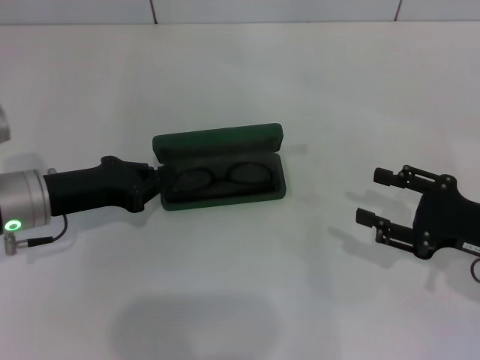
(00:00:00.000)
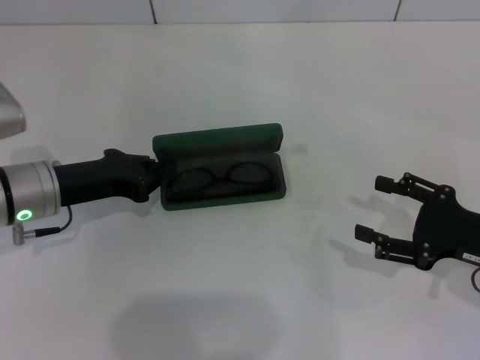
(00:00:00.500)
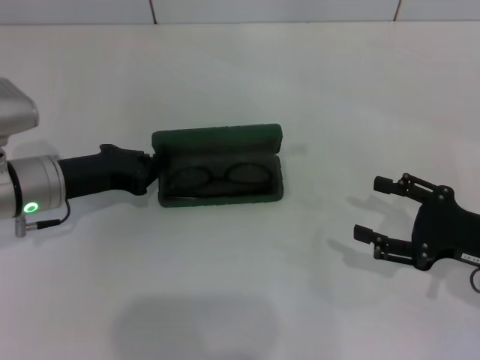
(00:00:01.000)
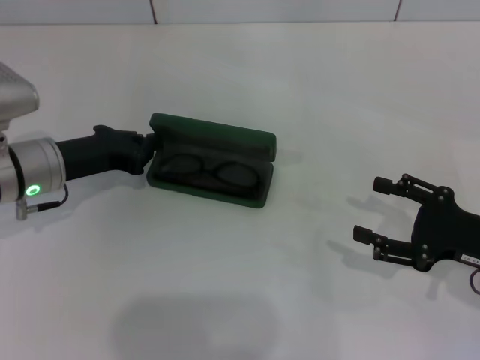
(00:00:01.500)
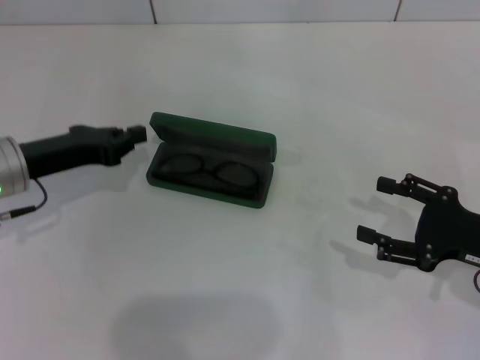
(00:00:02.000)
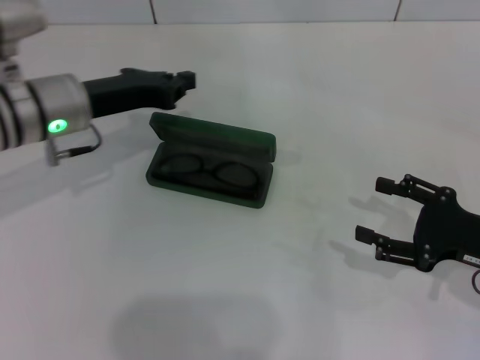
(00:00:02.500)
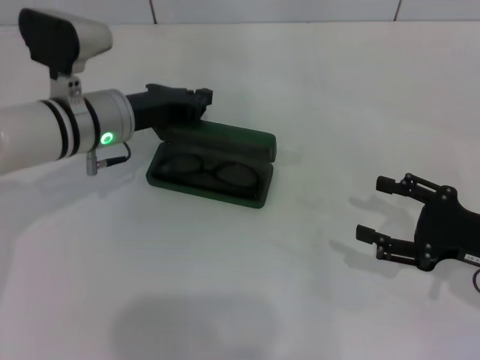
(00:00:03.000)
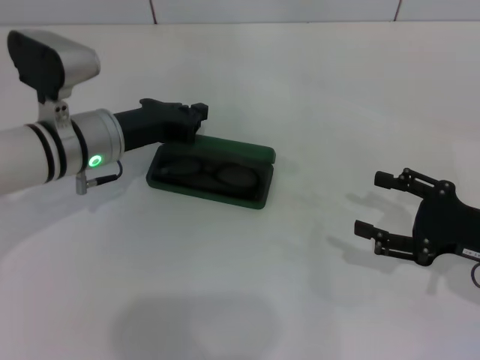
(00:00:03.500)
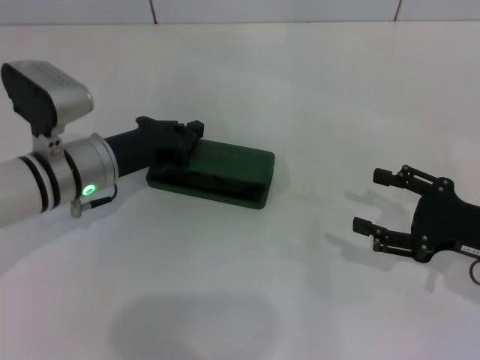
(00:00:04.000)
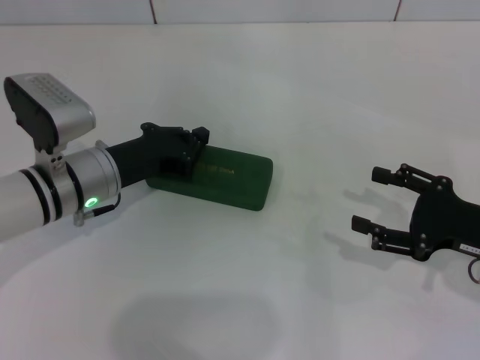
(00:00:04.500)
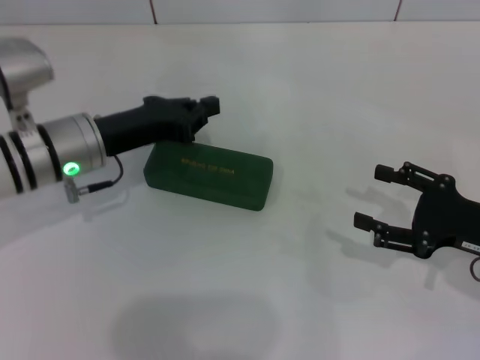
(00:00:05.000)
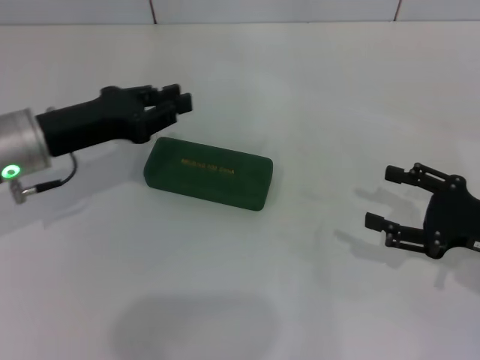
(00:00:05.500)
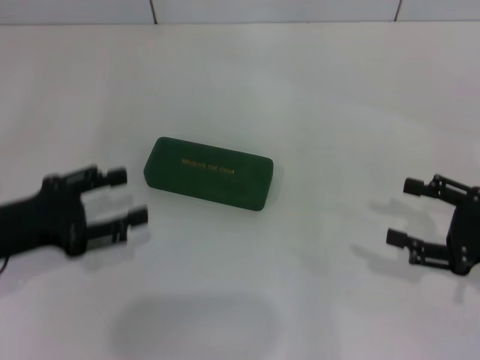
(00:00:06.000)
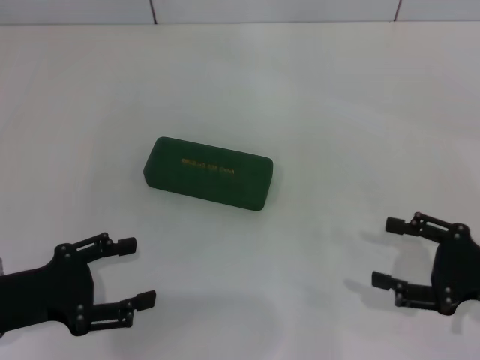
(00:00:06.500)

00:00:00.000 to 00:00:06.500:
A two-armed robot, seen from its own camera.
Step, 00:00:01.500 to 00:00:04.000: Close the glasses case with your left hand.
00:00:00.000 to 00:00:02.000: The right gripper opens.
00:00:02.000 to 00:00:04.500: The left gripper goes roughly 10 cm to the right.
00:00:04.500 to 00:00:06.500: The left gripper shifts about 15 cm backward and to the left, and opens up.

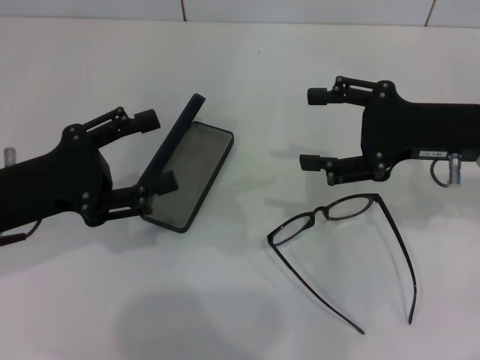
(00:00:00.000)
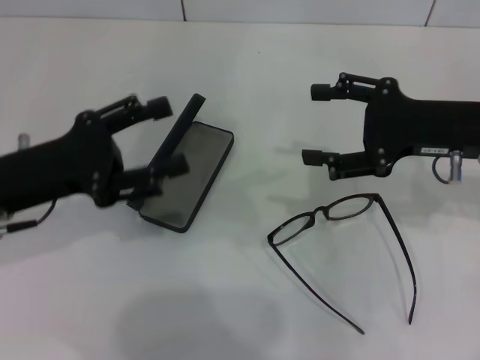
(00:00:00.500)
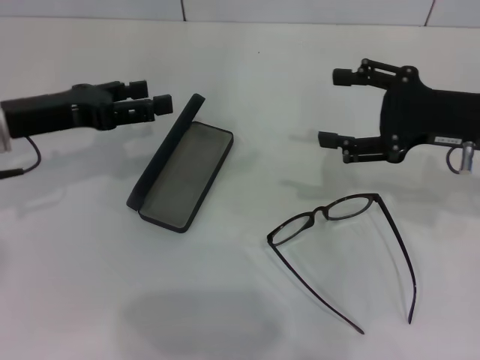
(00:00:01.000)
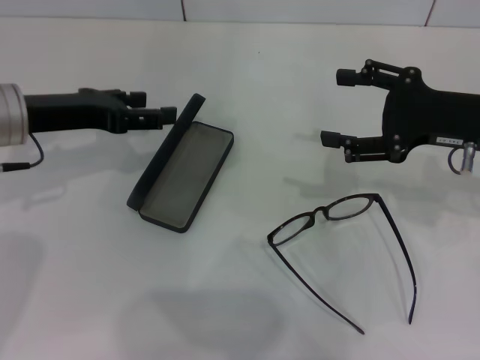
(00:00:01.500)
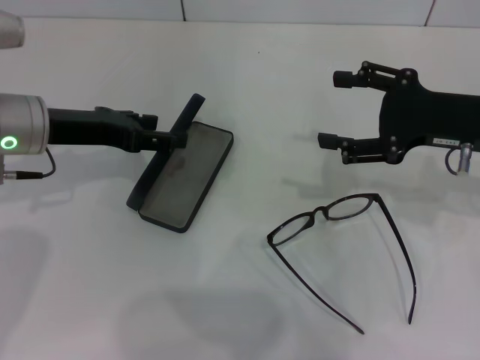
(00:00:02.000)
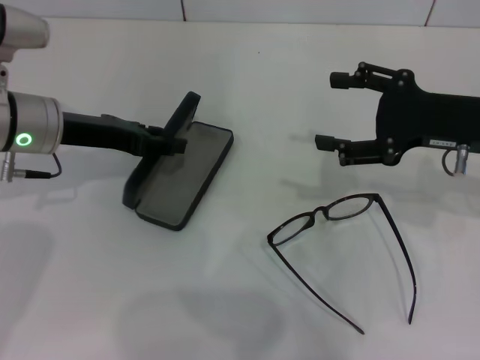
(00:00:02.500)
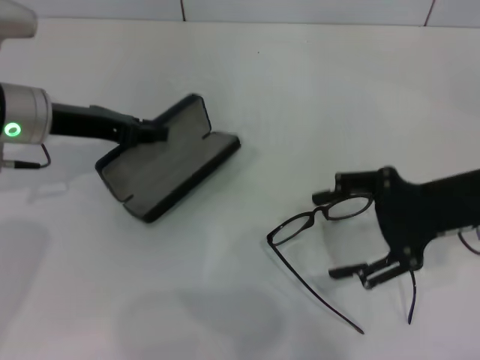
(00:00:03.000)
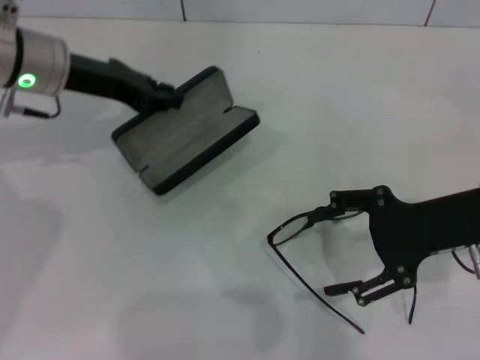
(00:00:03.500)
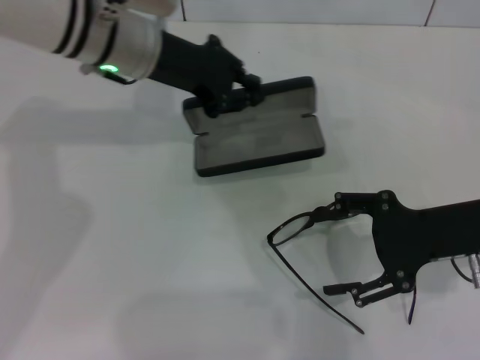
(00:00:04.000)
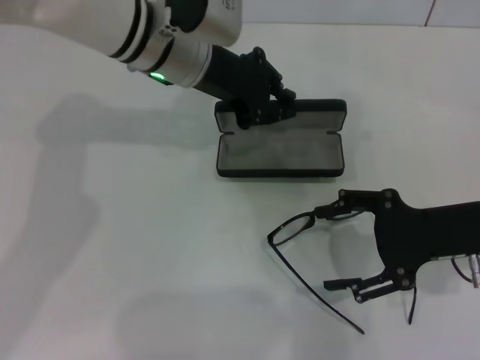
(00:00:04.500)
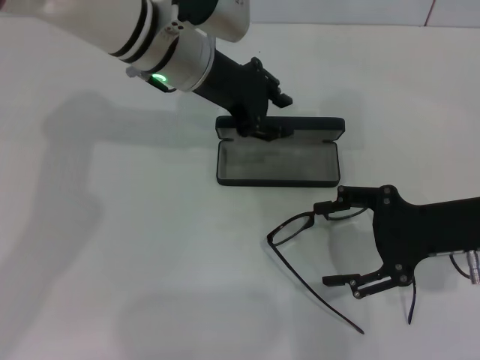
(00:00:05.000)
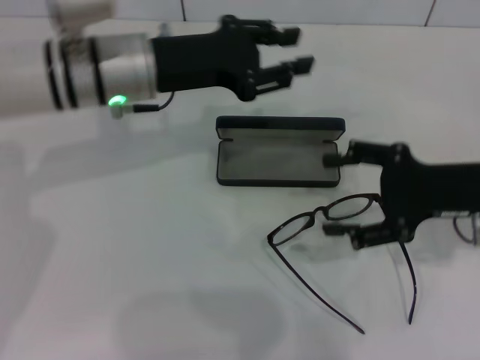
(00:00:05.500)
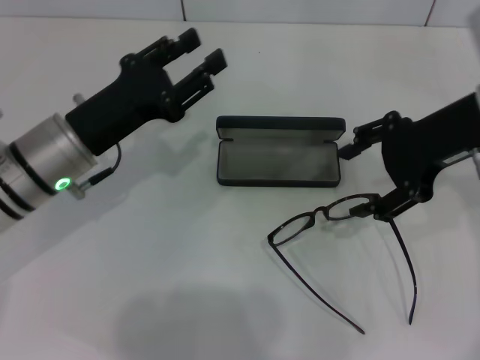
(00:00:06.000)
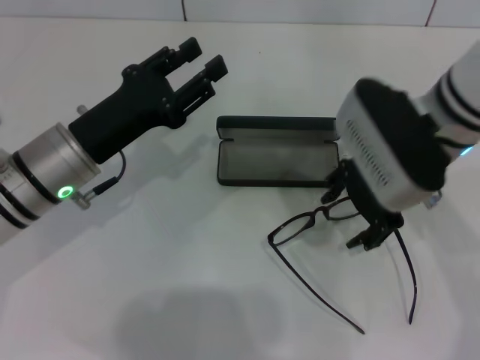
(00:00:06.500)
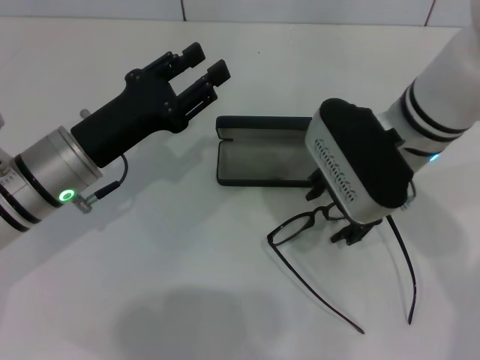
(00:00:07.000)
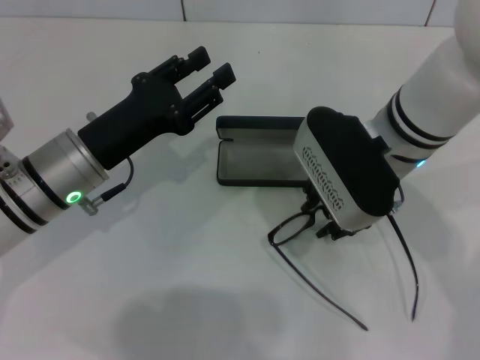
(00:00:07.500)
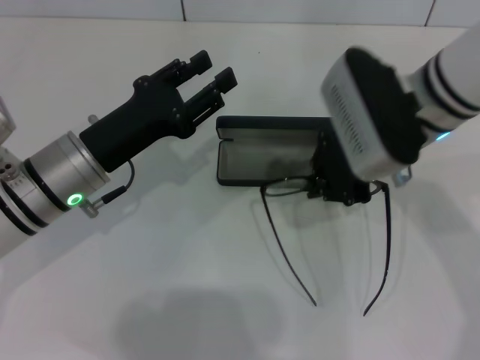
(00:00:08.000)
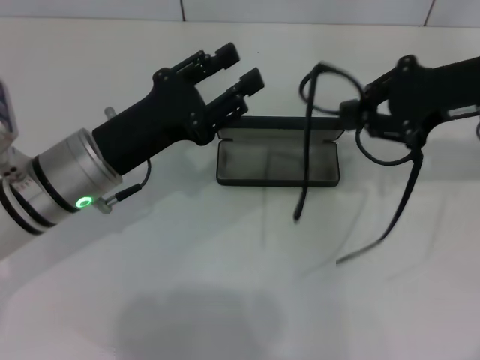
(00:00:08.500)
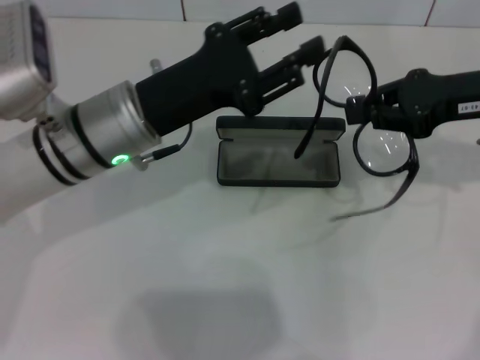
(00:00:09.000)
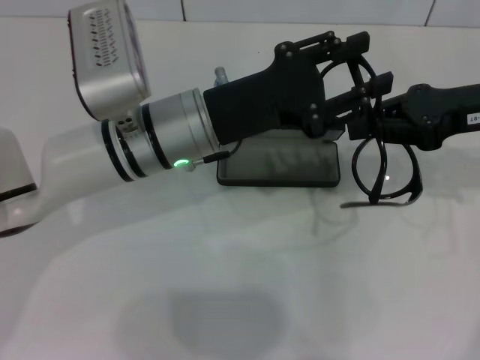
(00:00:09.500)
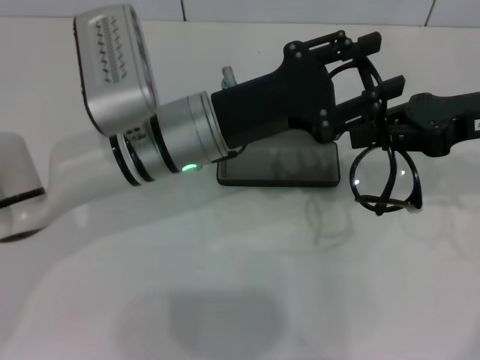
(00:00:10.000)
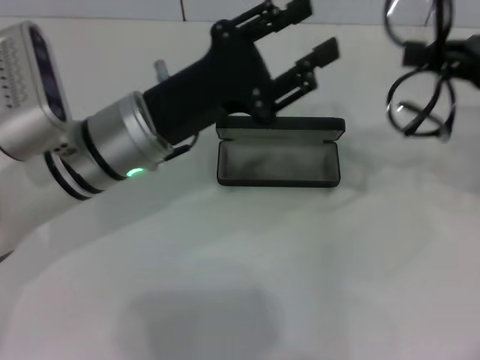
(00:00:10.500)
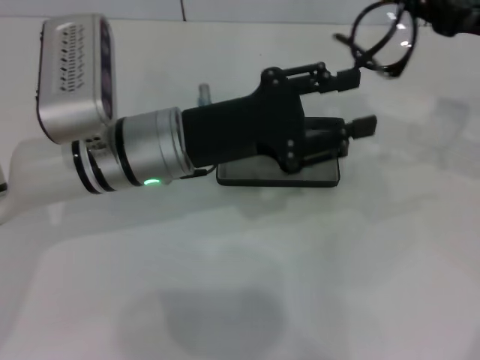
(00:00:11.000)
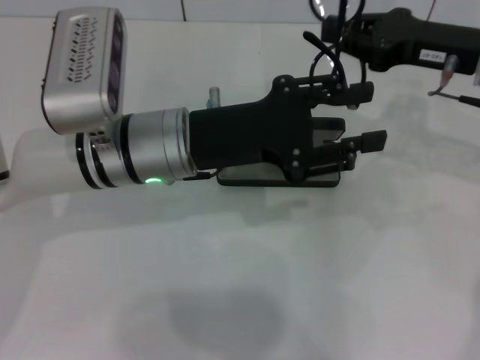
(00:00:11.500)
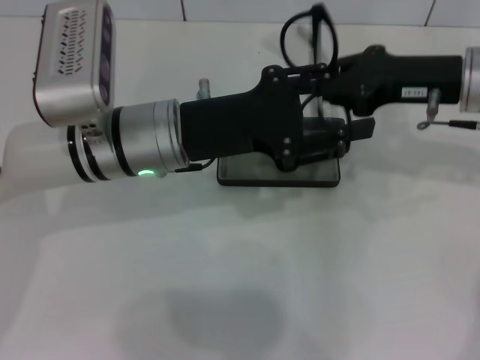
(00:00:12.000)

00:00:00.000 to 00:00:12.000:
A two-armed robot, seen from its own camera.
Step, 00:00:00.000 to 00:00:02.500: Grab the glasses case with your left hand.
Step, 00:00:03.000 to 00:00:04.500: Place the glasses case in the center of the table with your left hand.
Step, 00:00:05.000 to 00:00:07.500: Grab the eyeglass frame with your right hand.
00:00:00.000 to 00:00:02.000: The left gripper heads forward, covering roughly 10 cm.
00:00:02.000 to 00:00:04.000: The right gripper goes some 5 cm backward. Meanwhile the left gripper travels to the right, forward and upward by some 15 cm, and closes up.
00:00:04.000 to 00:00:06.000: The right gripper travels upward and forward by approximately 10 cm, while the left gripper heads backward, downward and to the left, covering approximately 15 cm, and opens.
00:00:06.000 to 00:00:08.000: The right gripper goes roughly 10 cm to the left, and closes.
00:00:08.000 to 00:00:10.000: Both grippers travel together to the right, some 10 cm.
00:00:10.000 to 00:00:12.000: The right gripper ends up approximately 5 cm from where it was.

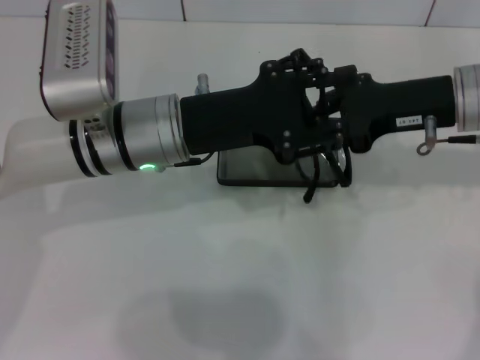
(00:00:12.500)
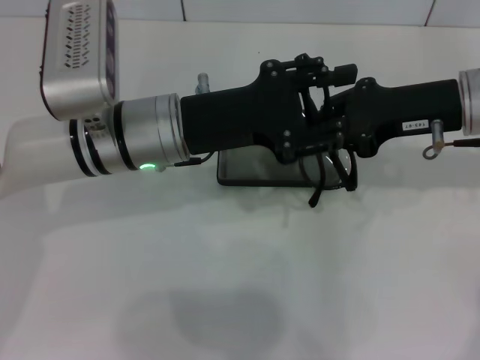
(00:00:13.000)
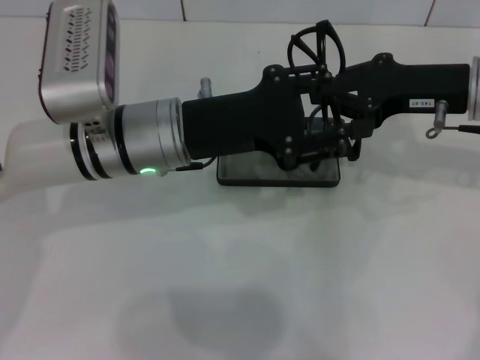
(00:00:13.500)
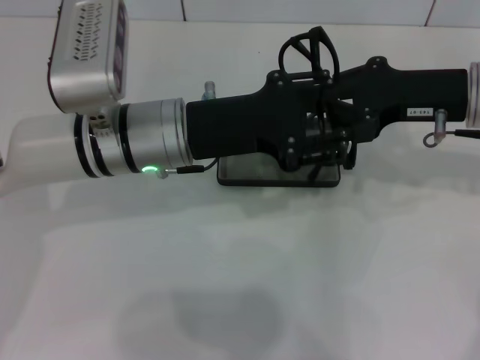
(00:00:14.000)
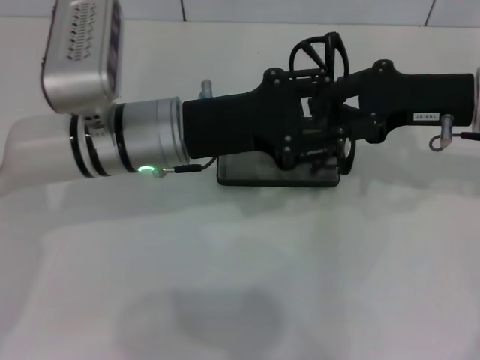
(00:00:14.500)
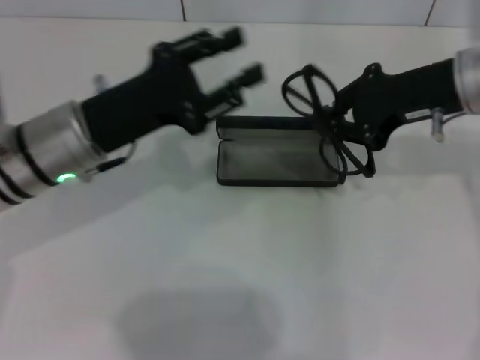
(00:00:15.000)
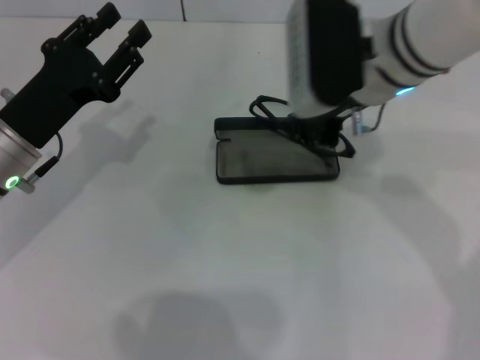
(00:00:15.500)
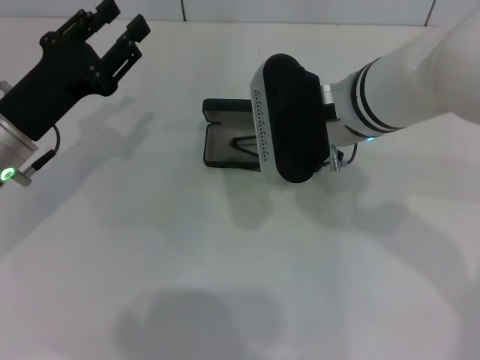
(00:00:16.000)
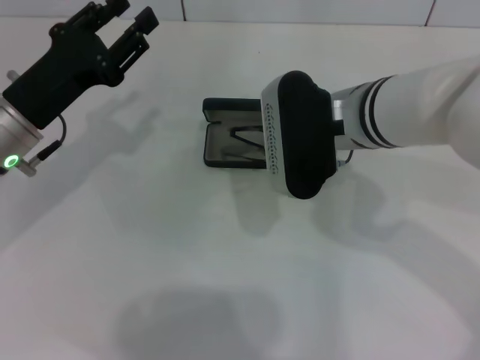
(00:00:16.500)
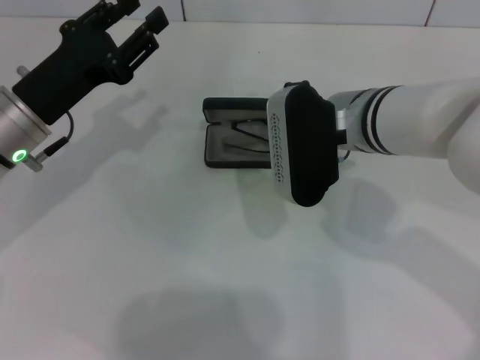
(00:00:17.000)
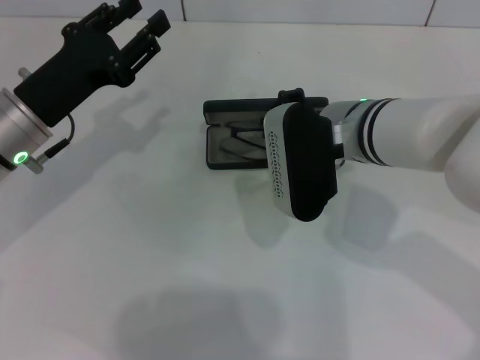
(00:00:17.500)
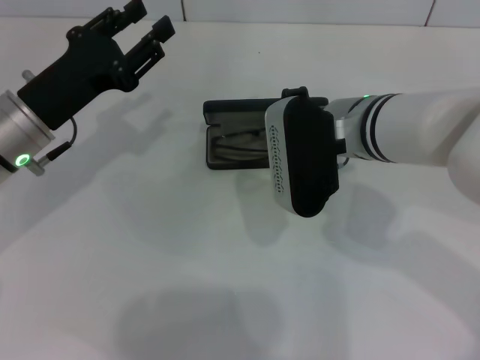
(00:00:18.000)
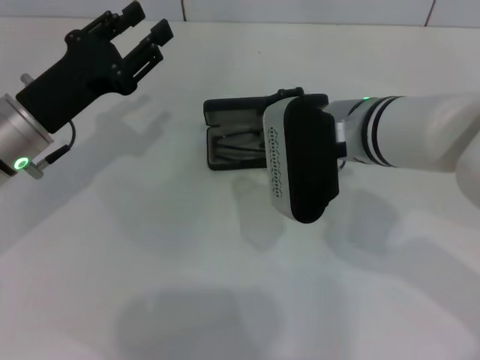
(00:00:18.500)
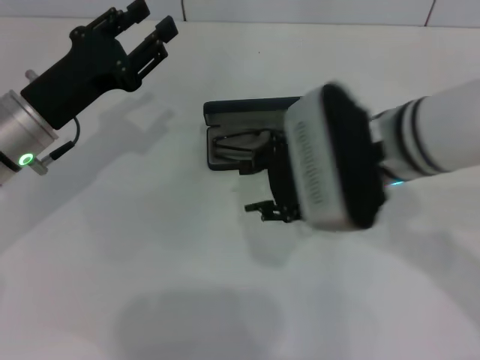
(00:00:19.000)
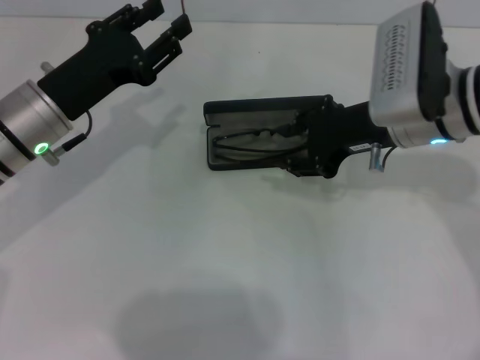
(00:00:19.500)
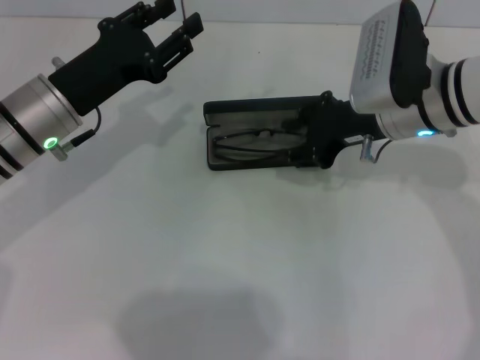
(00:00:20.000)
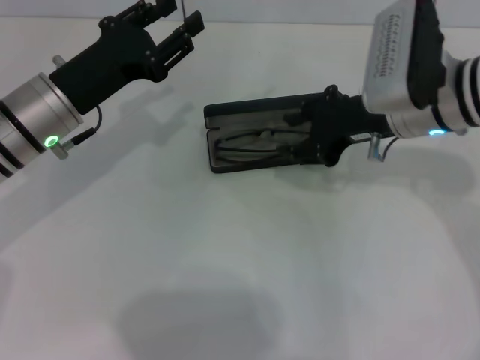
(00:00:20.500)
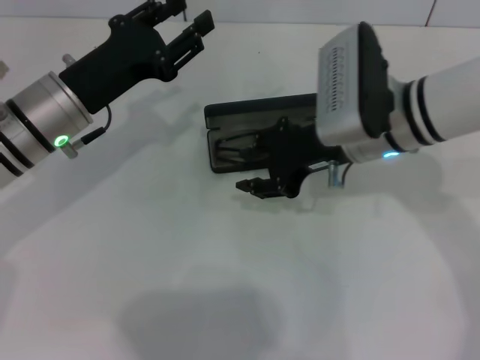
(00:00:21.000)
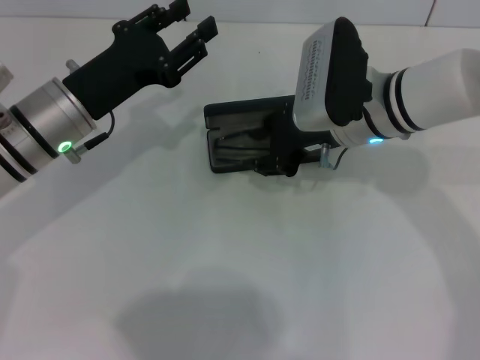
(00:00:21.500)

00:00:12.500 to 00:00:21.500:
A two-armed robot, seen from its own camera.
00:00:12.500 to 00:00:14.500: The grippers stay close to where they were, moving slightly.
00:00:14.500 to 00:00:17.000: Both grippers move to the left, roughly 15 cm.
00:00:17.000 to 00:00:19.500: The right gripper is displaced to the right by approximately 5 cm, and opens up.
00:00:19.500 to 00:00:21.500: The right gripper moves to the left, roughly 5 cm.
